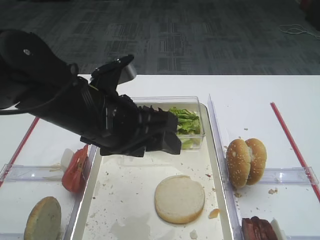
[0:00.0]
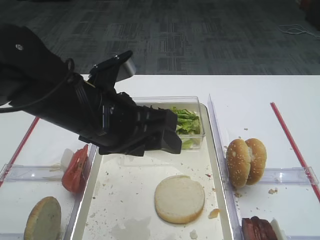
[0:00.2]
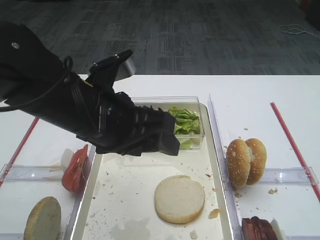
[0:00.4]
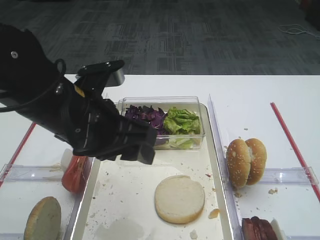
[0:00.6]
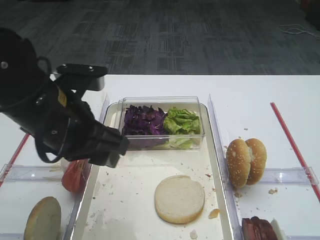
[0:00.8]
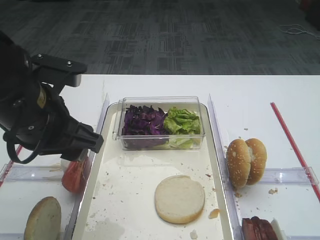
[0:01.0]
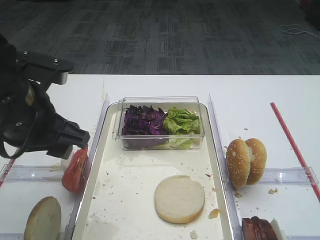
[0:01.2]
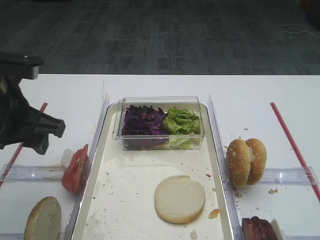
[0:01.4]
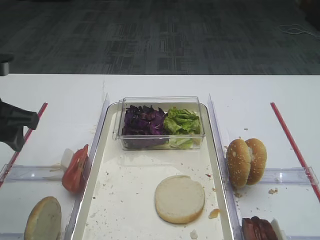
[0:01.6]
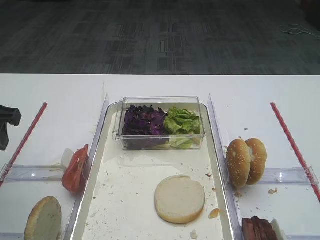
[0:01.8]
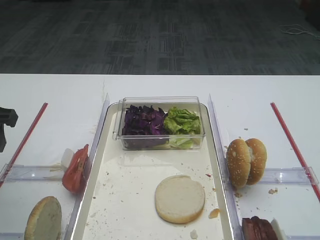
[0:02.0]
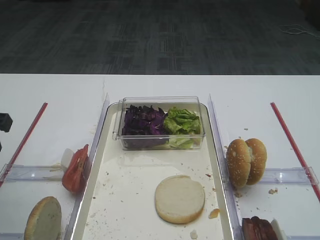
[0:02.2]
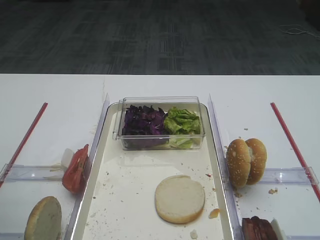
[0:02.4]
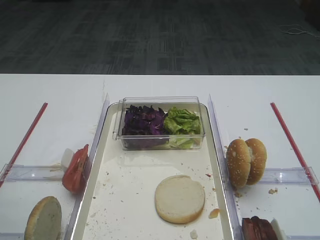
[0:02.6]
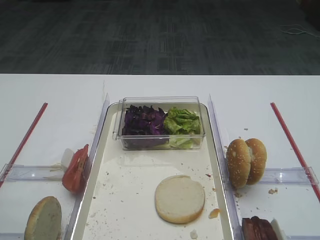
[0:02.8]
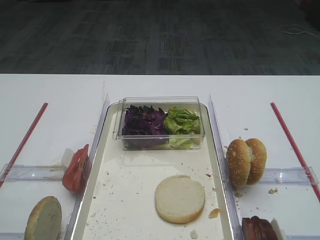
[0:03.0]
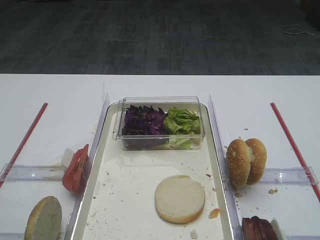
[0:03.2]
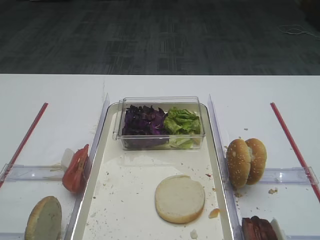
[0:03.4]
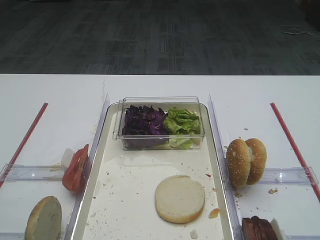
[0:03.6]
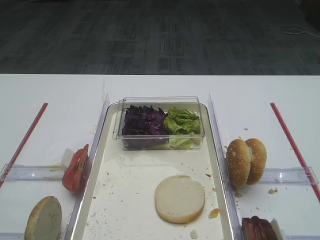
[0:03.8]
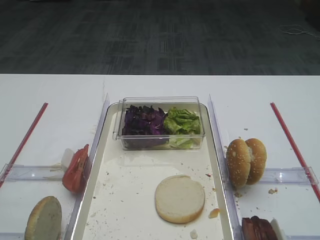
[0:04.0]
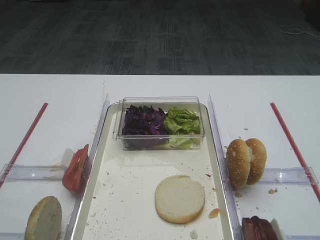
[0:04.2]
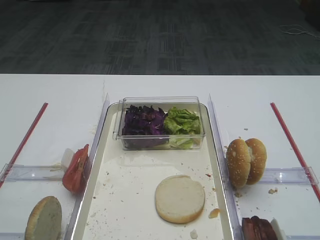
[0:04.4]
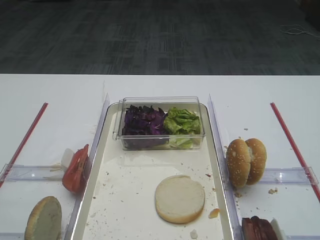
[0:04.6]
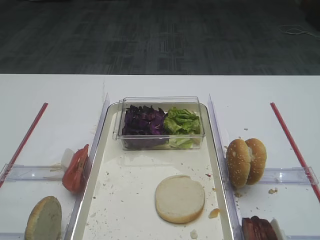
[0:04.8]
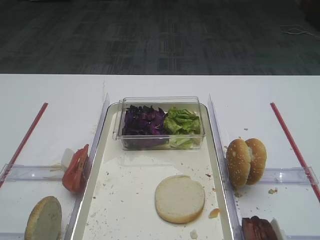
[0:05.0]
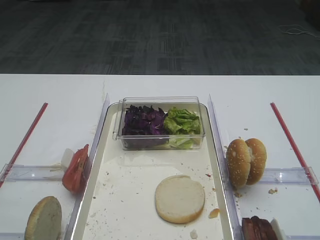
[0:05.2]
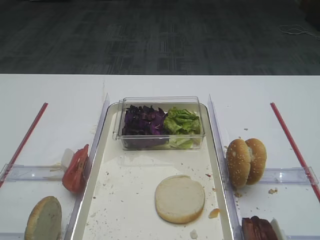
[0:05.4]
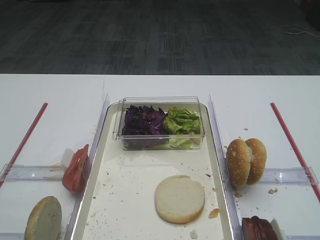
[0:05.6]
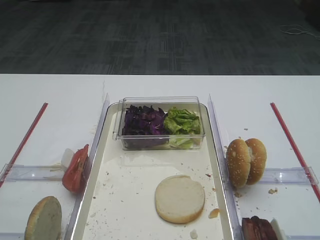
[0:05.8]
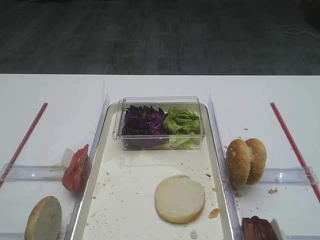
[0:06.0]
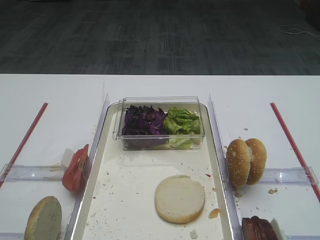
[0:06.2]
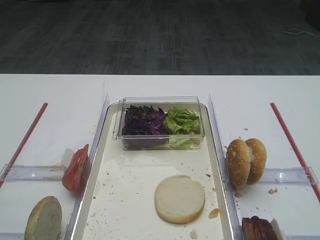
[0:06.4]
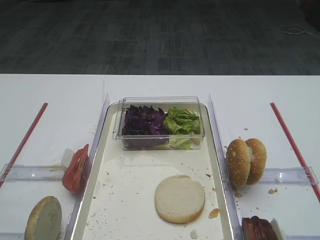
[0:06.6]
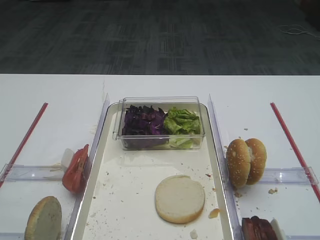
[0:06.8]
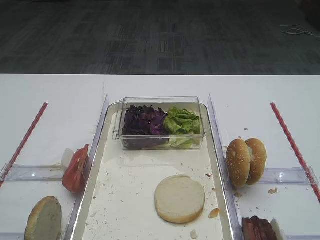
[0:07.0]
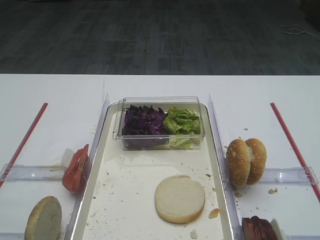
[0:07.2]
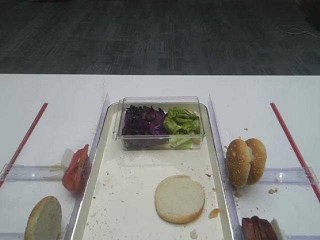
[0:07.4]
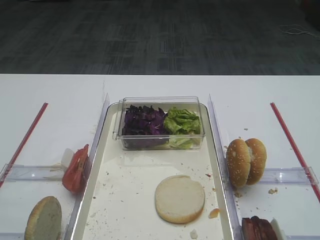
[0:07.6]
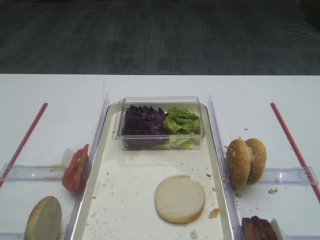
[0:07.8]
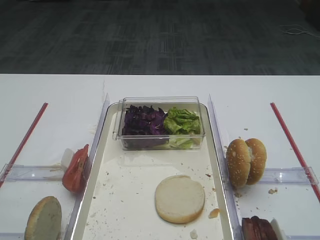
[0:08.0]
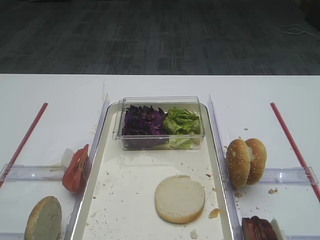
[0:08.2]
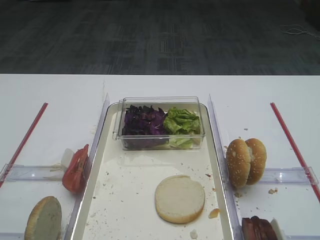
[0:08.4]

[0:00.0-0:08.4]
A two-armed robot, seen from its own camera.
0:00.0 to 0:01.4: The left gripper shifts about 15 cm to the left.
0:01.4 to 0:02.8: The left gripper travels backward and to the left by roughly 15 cm.
0:04.2 to 0:08.4: Neither gripper changes place.

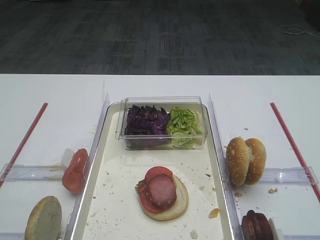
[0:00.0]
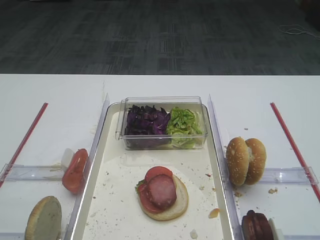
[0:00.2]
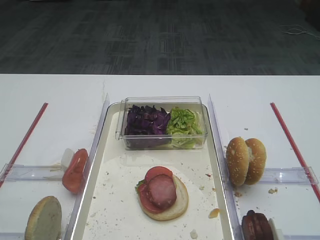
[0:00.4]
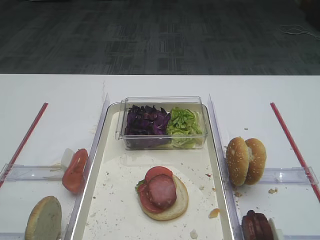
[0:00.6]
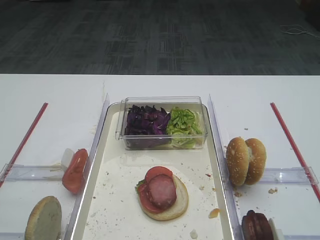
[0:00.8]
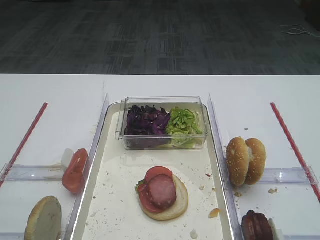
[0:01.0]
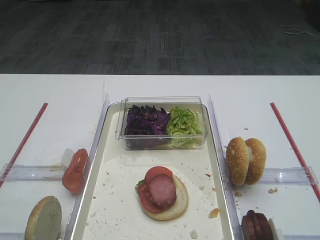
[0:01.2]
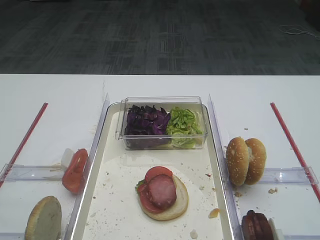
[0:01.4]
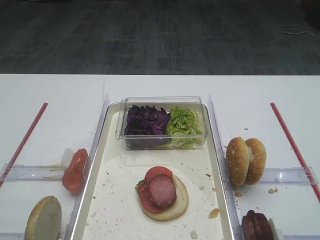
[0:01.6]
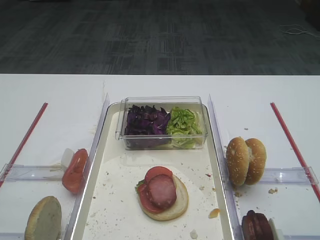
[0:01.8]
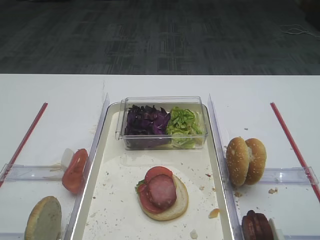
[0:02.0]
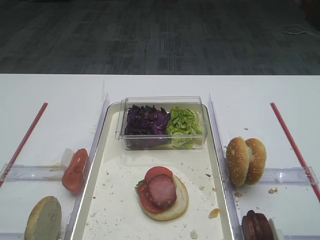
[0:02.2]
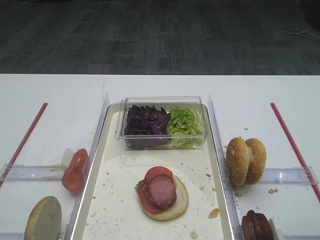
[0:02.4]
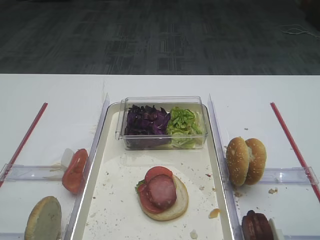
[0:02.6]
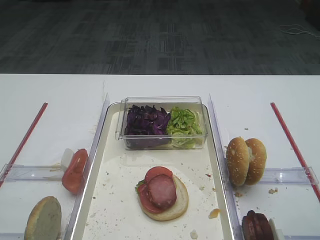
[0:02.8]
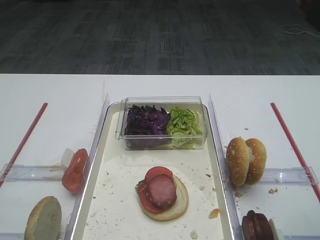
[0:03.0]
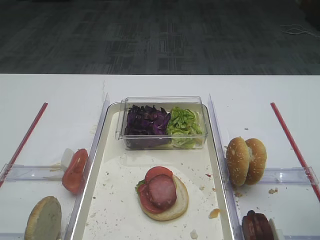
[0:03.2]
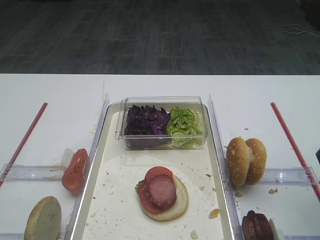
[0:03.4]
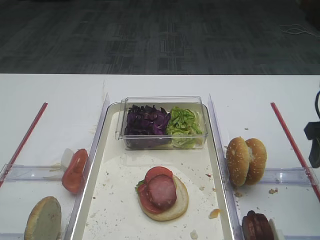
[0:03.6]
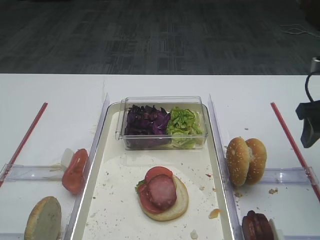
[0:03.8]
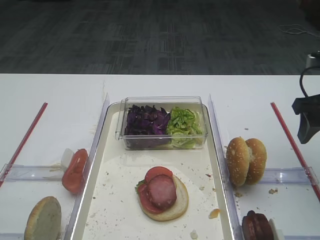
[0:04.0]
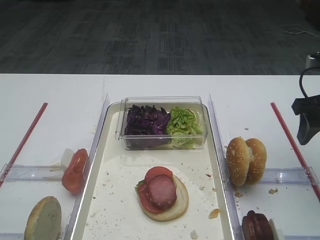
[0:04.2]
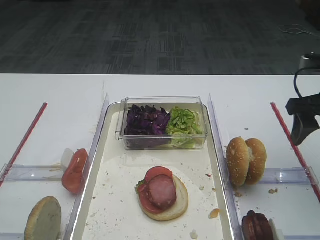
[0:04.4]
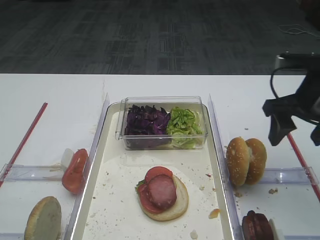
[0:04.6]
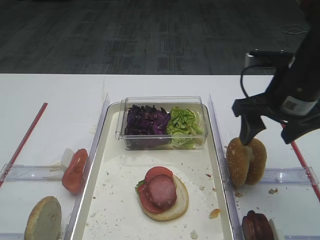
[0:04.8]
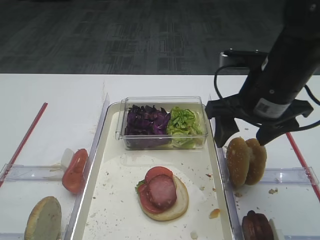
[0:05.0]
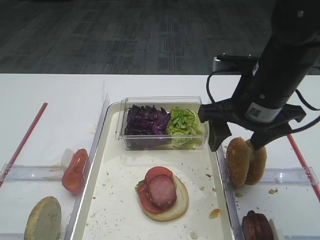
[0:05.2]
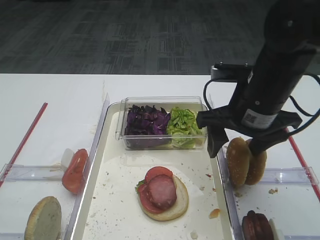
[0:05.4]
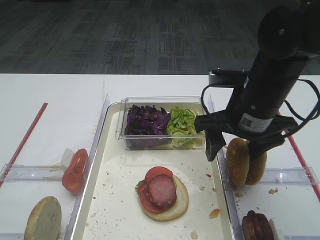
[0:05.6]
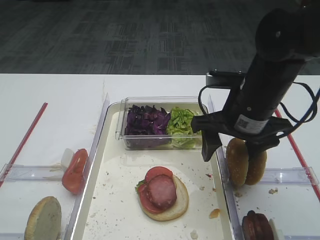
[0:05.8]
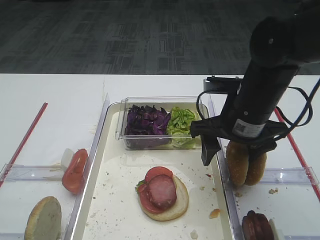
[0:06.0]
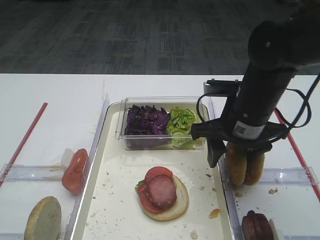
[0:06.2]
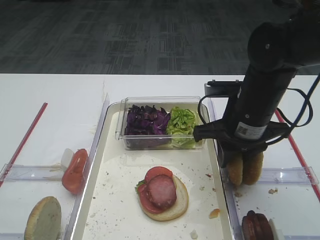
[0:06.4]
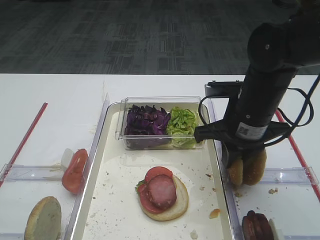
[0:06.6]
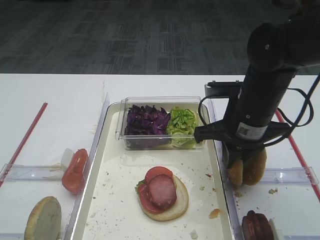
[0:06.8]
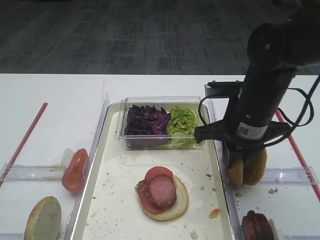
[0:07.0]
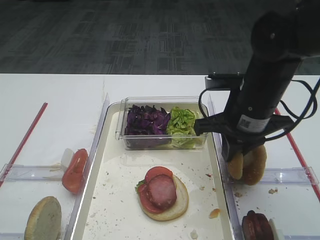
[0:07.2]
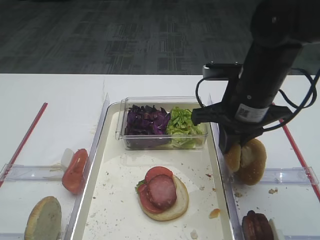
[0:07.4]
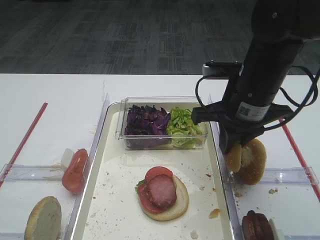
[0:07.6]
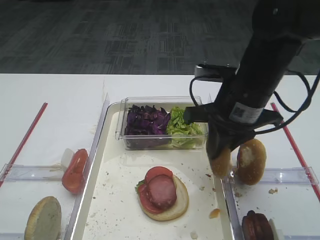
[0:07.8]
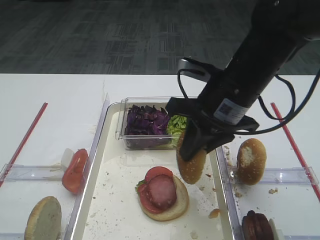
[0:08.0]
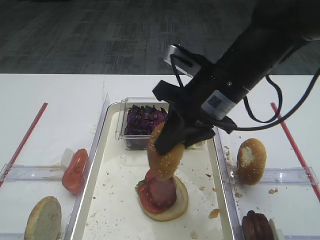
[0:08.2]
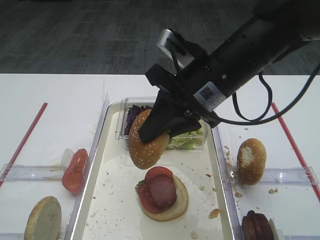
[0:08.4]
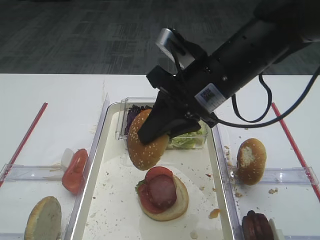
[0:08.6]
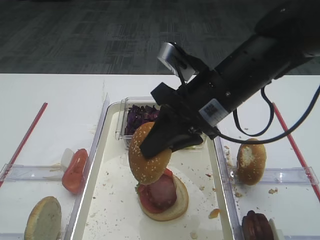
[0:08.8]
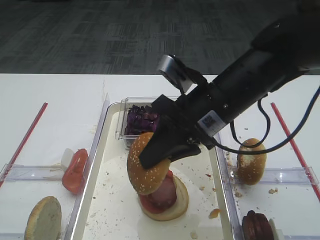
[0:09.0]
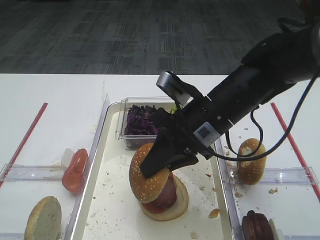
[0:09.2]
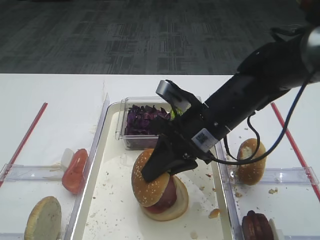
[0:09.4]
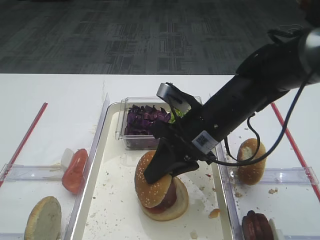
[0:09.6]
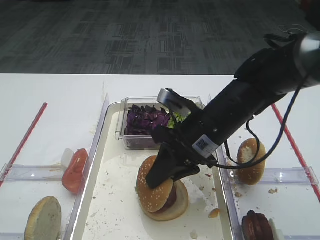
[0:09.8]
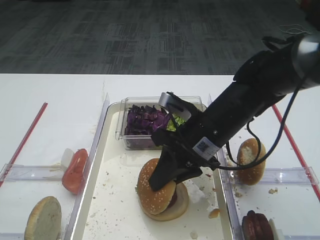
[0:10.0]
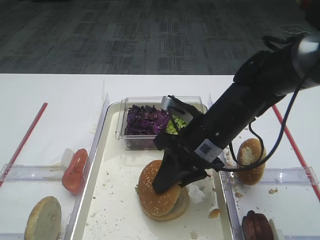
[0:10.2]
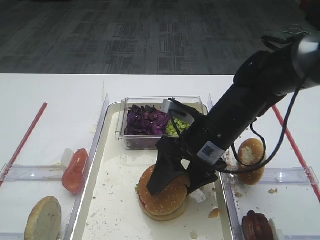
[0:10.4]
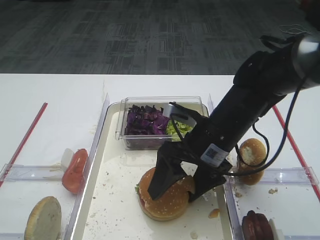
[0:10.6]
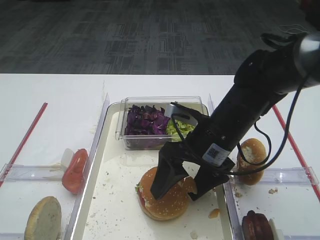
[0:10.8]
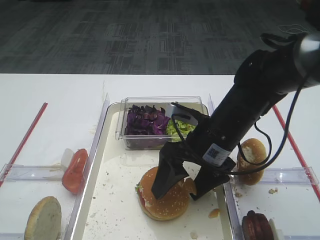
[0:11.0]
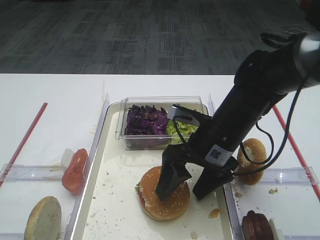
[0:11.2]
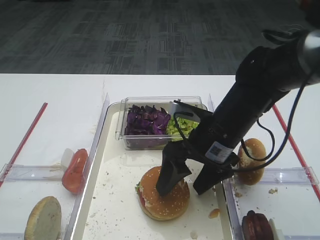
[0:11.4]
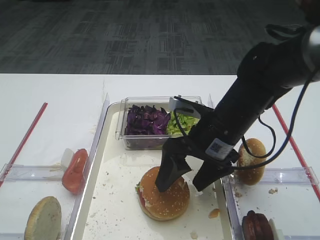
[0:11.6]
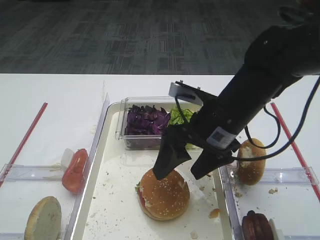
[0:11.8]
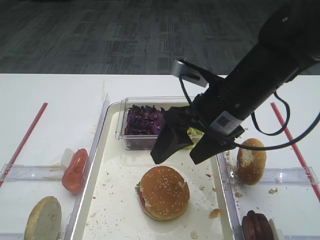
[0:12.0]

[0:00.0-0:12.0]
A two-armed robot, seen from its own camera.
Step, 0:00.0 to 0:07.4: Pick up the hamburger lid with the right gripper.
Step, 0:07.6 to 0:11.2: Place the hamburger lid on the cutlet with the right gripper.
0:03.0 to 0:04.4: The right gripper is displaced forward by approximately 15 cm.
0:04.4 to 0:06.0: The right gripper is displaced to the left by some 15 cm.
0:06.0 to 0:07.6: The right gripper closes up.
0:07.6 to 0:09.0: The right gripper travels to the left by about 5 cm.
0:09.0 to 0:10.4: The right gripper moves downward, about 5 cm, and opens.
0:10.4 to 0:12.0: The right gripper goes roughly 5 cm upward, and opens.

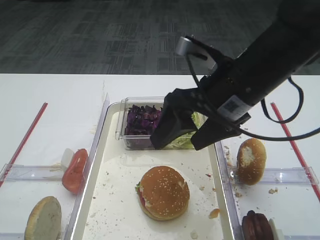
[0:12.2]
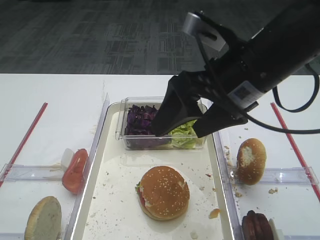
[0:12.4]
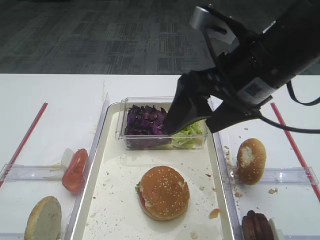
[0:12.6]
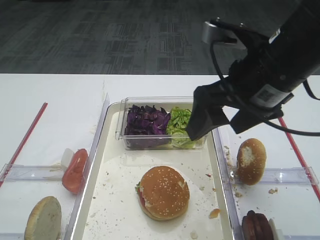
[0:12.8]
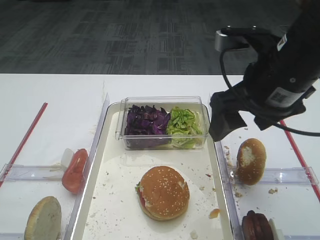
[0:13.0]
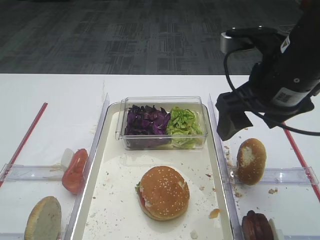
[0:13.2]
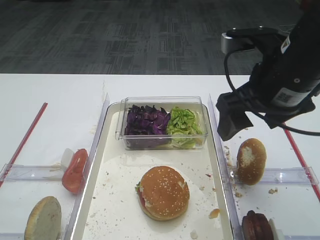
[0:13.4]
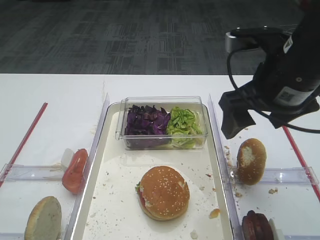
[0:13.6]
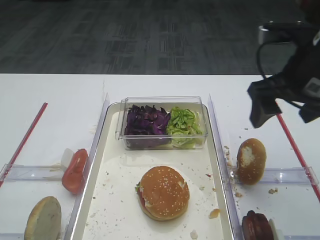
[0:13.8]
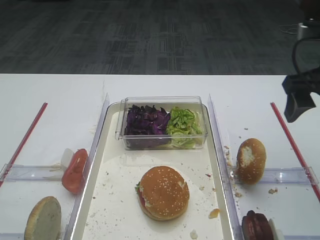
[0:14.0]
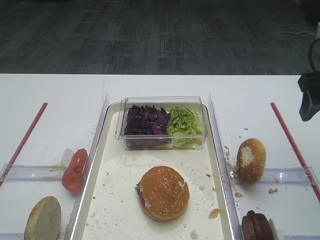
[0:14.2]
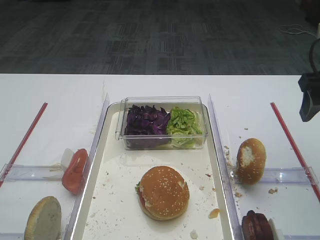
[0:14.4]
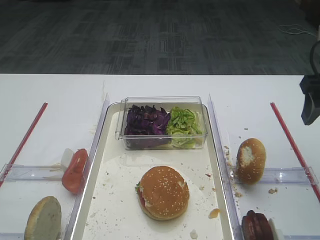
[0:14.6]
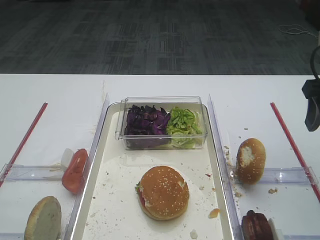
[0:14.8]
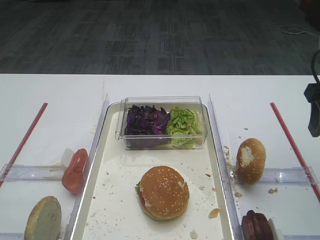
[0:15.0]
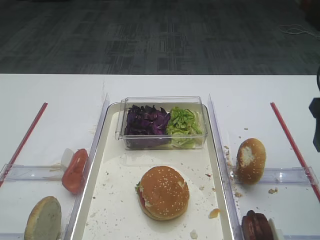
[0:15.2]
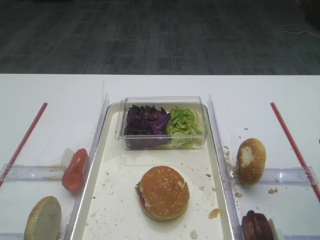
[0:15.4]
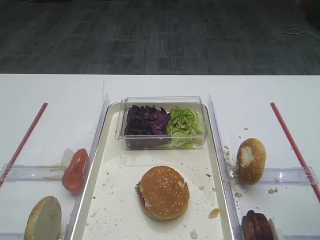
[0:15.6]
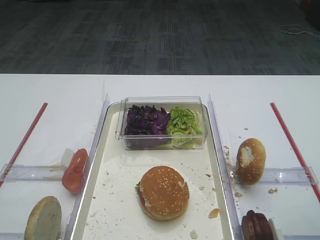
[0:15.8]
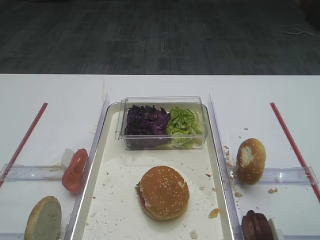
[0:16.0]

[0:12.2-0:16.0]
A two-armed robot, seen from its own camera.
0:12.2 to 0:13.4: The right gripper shifts about 5 cm to the right.
0:13.4 to 0:14.8: The right gripper travels to the right by approximately 10 cm.
0:14.8 to 0:16.0: The right gripper shifts roughly 15 cm backward.
